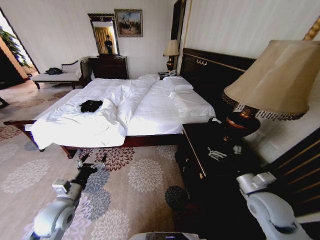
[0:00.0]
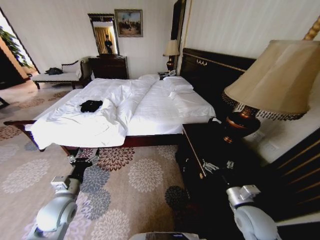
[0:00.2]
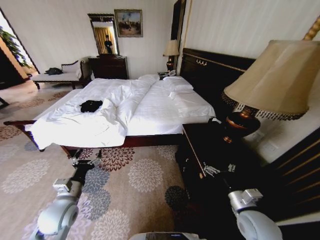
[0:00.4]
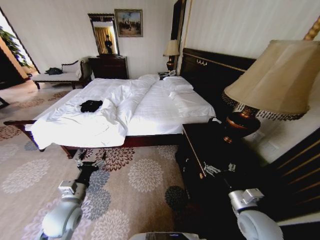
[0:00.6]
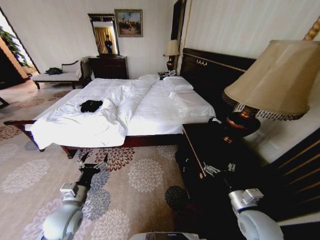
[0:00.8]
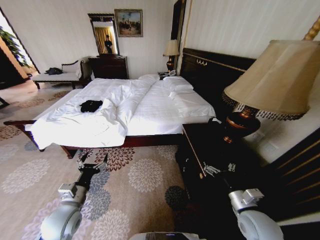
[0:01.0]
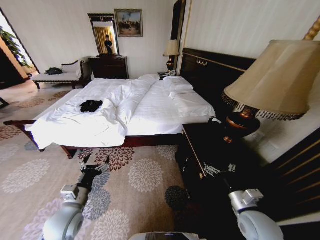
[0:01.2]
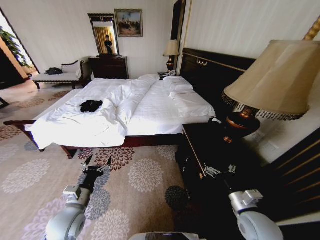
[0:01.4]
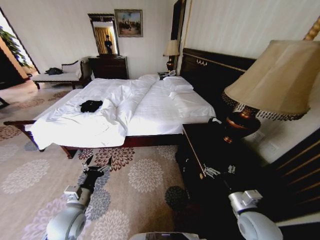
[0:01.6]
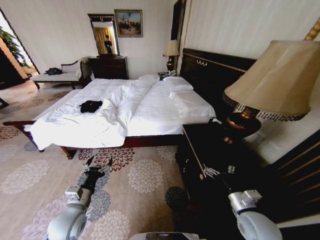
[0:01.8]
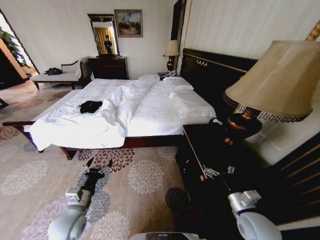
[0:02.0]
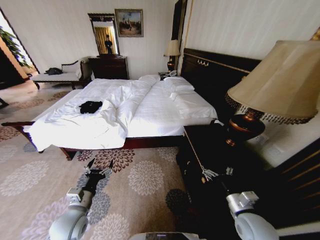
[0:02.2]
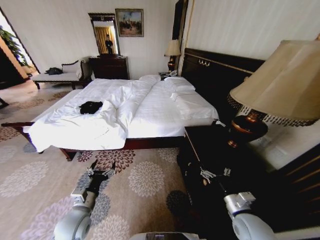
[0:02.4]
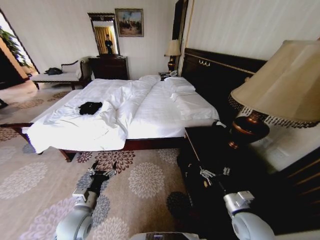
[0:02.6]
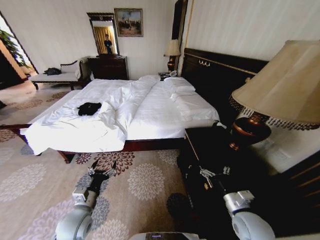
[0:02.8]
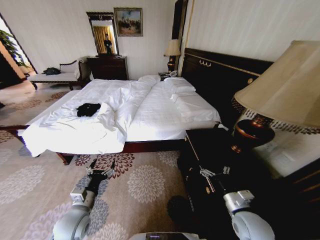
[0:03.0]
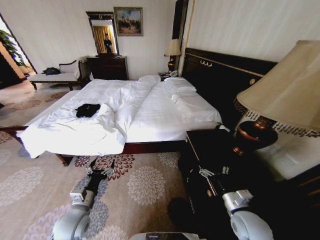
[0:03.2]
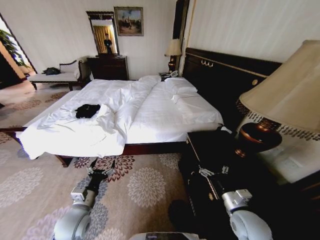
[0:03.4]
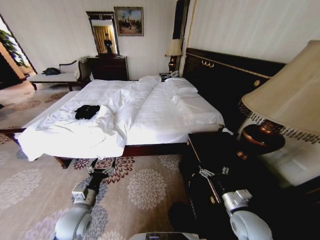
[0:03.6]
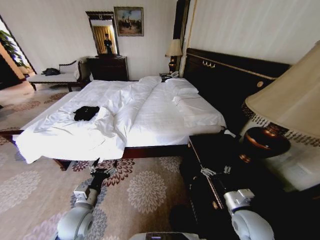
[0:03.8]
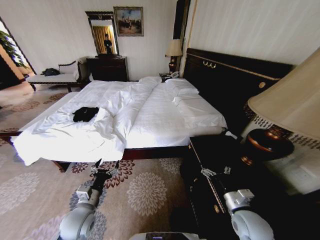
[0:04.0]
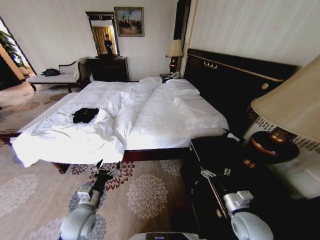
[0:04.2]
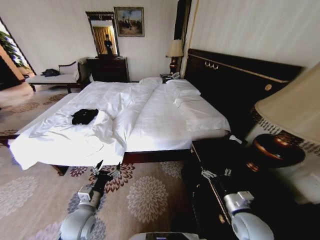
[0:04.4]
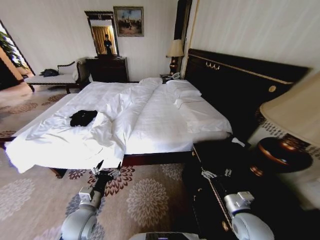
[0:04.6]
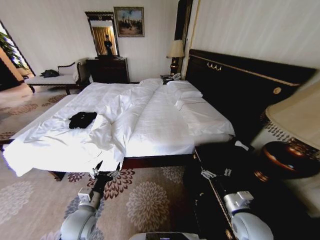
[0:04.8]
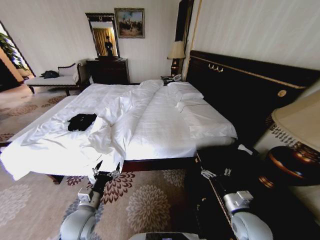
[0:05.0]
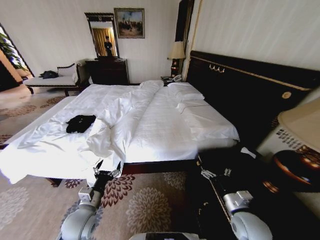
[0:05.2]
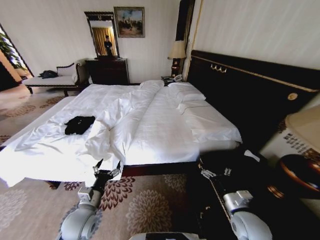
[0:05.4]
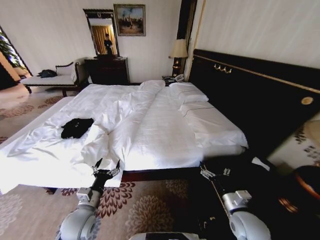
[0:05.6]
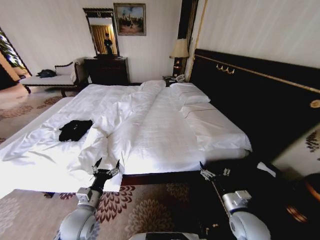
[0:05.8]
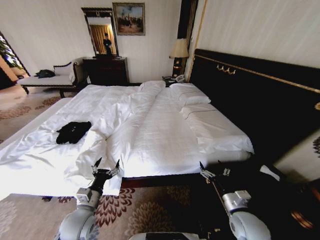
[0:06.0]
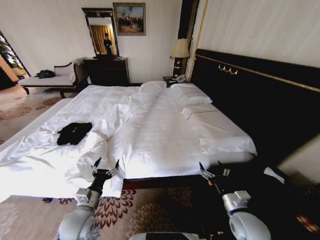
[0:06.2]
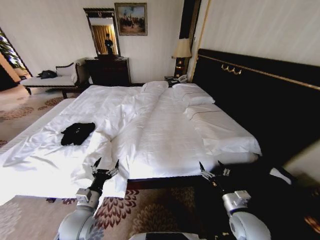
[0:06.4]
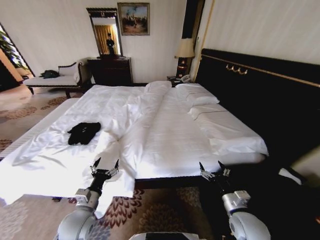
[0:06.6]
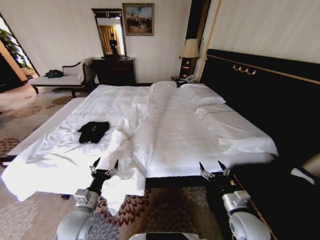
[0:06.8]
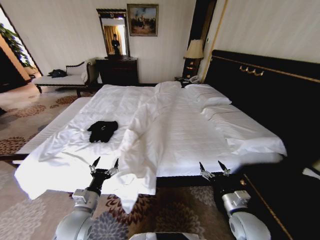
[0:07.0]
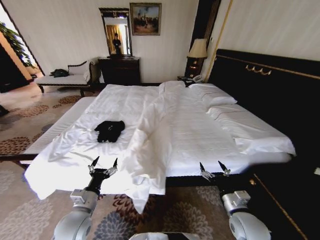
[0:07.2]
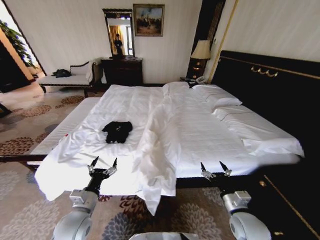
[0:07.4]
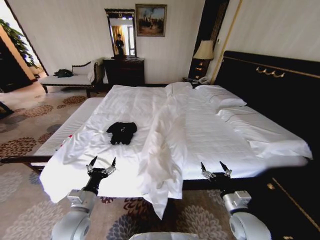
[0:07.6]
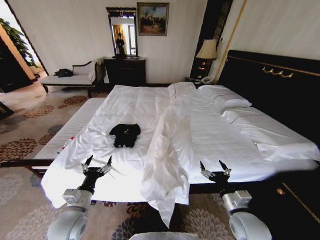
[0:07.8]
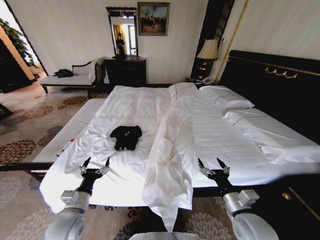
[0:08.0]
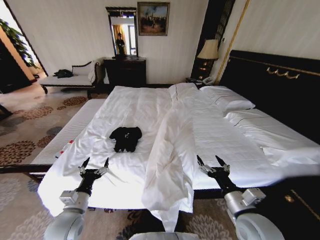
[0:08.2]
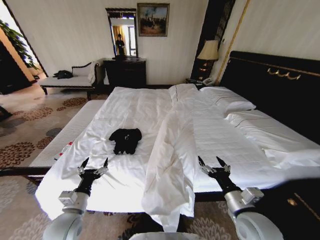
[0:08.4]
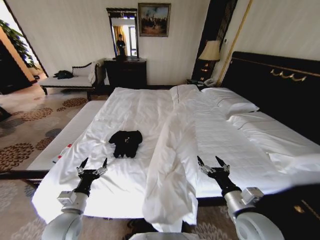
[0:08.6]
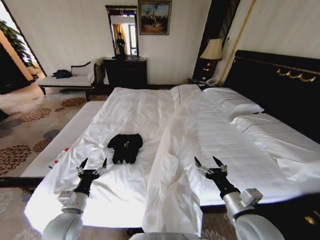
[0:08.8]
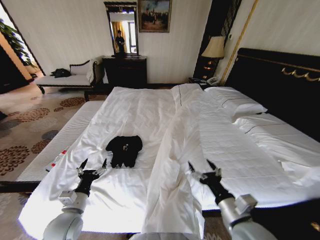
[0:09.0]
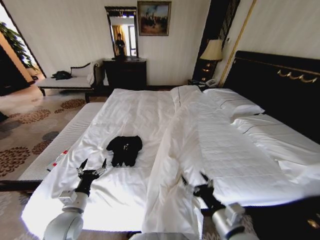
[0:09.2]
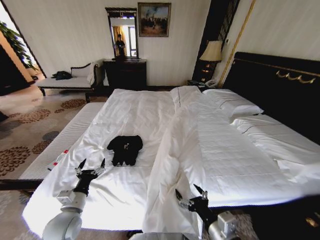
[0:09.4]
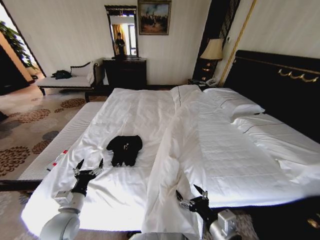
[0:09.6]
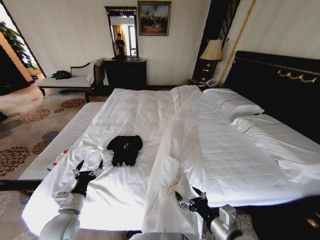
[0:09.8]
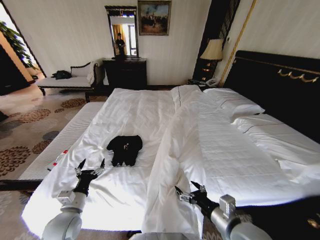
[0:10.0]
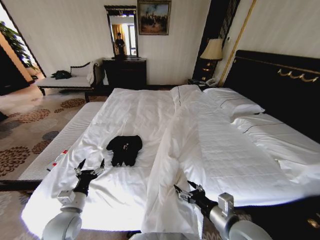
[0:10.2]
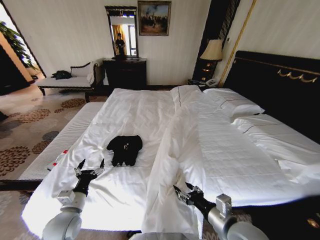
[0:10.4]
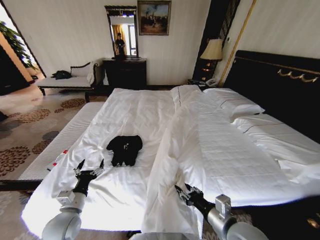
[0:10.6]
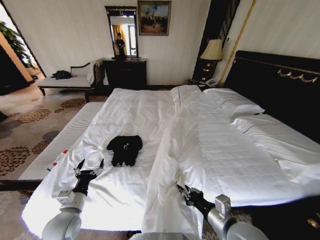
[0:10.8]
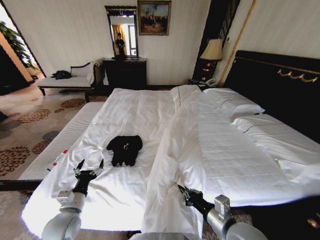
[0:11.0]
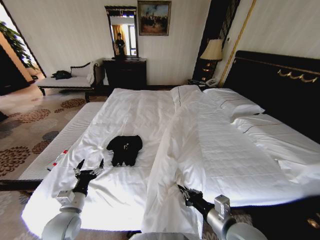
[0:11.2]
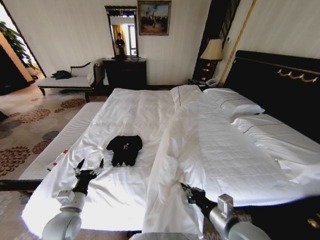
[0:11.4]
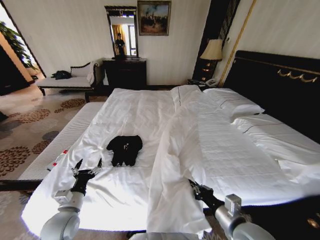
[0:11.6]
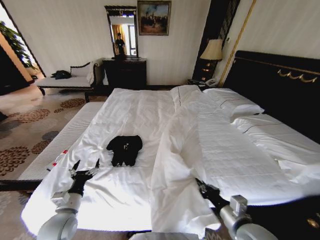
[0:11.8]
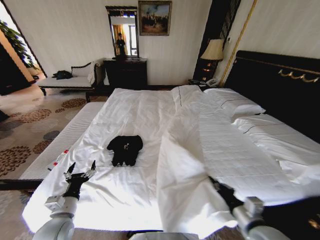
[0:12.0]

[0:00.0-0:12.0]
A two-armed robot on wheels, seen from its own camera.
Task of the whole recording: Fold the clothes on the bed.
0:07.6 to 0:09.0: The right gripper shifts approximately 10 cm upward and to the left.
0:10.4 to 0:12.0: The right gripper moves to the right, roughly 10 cm, and closes up.

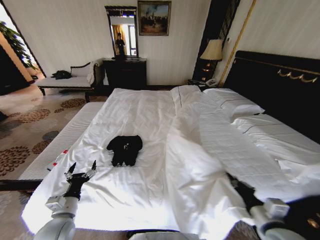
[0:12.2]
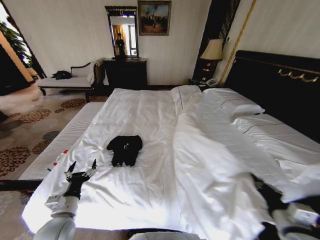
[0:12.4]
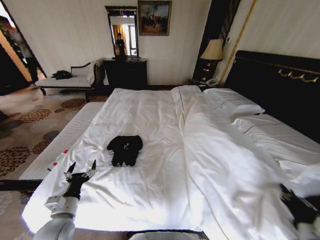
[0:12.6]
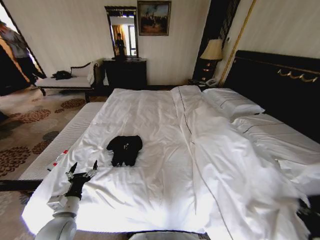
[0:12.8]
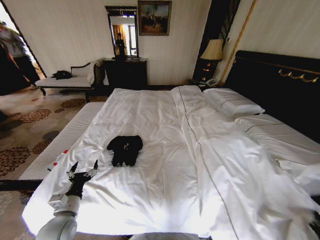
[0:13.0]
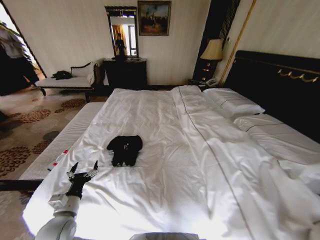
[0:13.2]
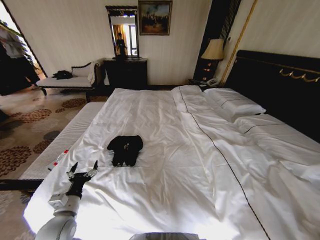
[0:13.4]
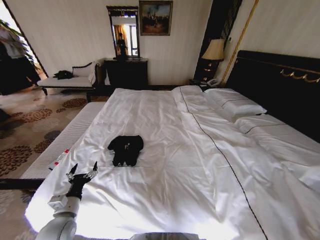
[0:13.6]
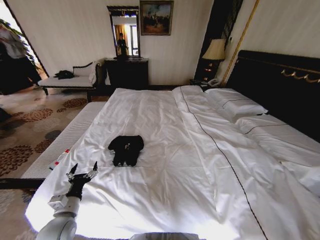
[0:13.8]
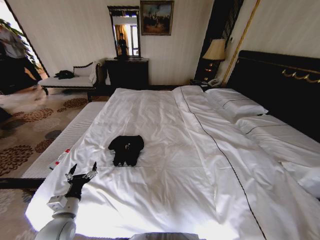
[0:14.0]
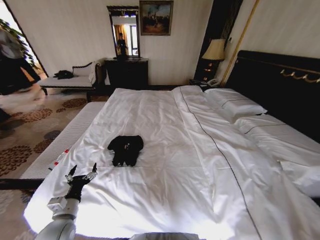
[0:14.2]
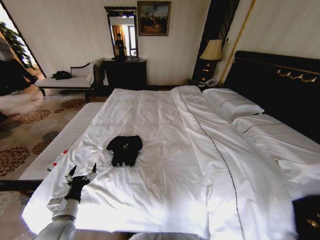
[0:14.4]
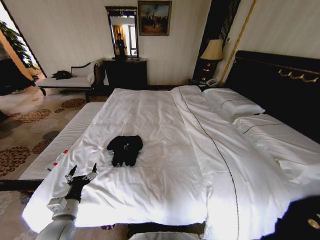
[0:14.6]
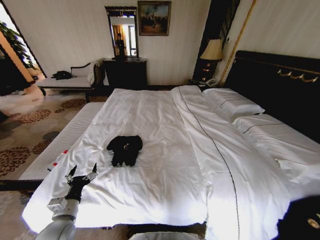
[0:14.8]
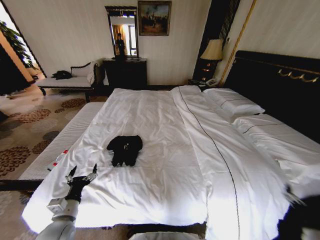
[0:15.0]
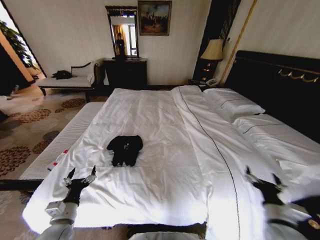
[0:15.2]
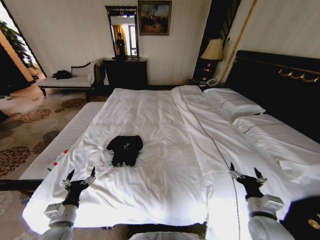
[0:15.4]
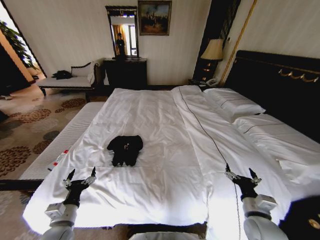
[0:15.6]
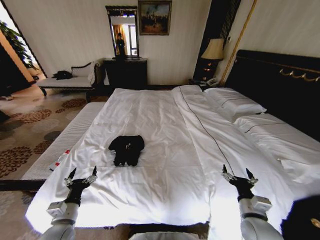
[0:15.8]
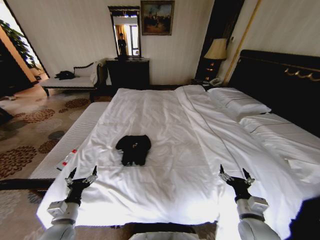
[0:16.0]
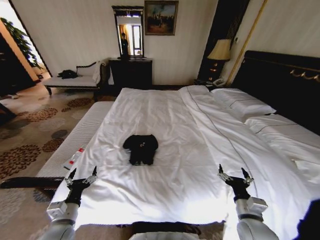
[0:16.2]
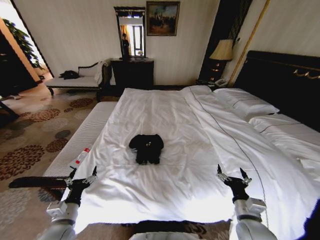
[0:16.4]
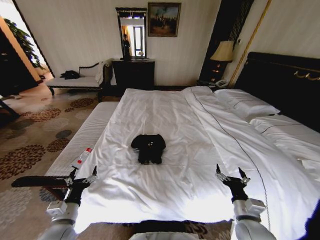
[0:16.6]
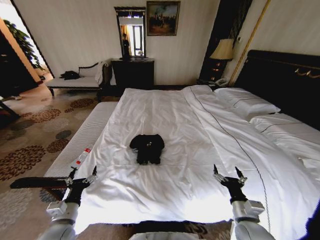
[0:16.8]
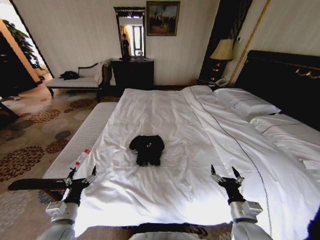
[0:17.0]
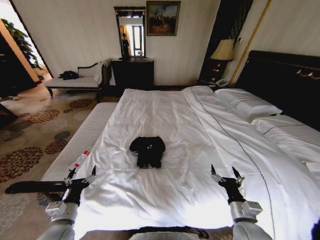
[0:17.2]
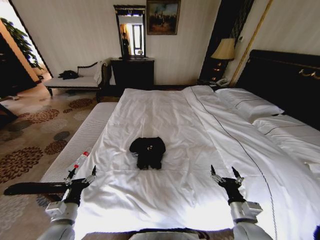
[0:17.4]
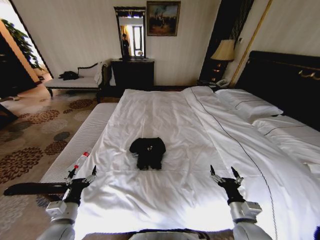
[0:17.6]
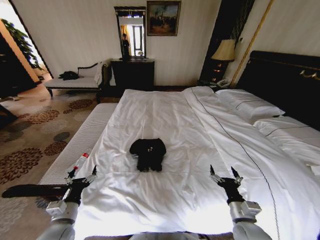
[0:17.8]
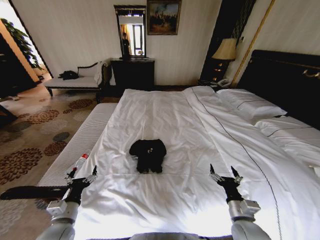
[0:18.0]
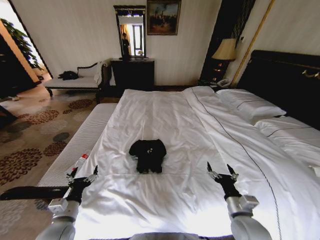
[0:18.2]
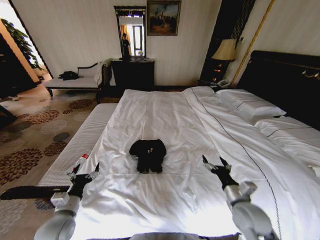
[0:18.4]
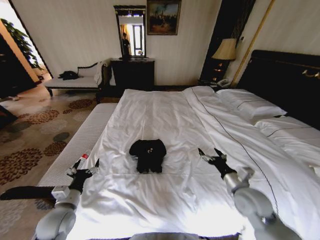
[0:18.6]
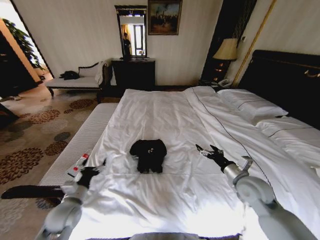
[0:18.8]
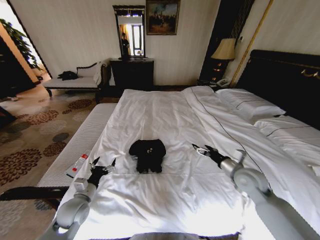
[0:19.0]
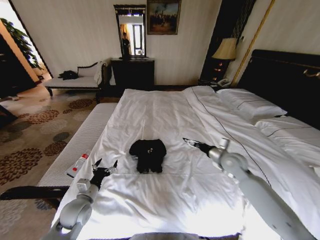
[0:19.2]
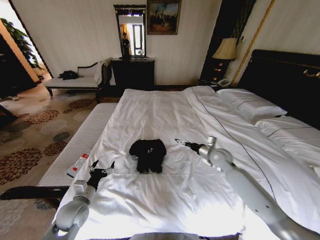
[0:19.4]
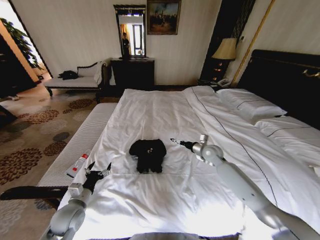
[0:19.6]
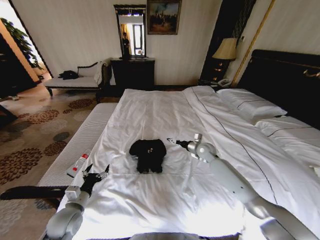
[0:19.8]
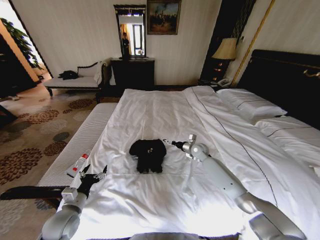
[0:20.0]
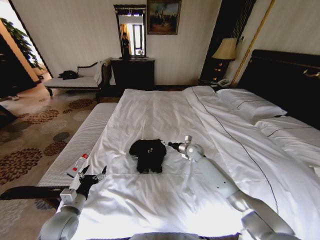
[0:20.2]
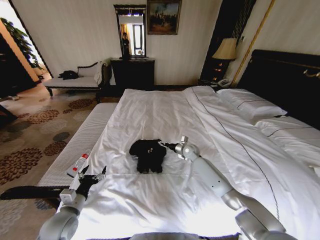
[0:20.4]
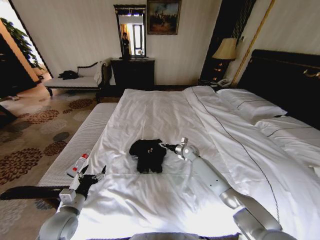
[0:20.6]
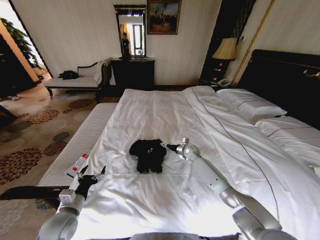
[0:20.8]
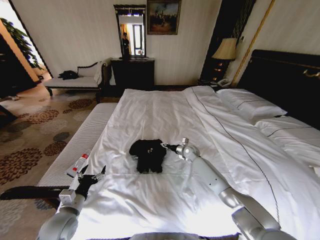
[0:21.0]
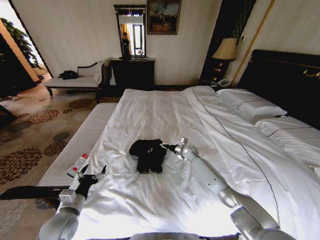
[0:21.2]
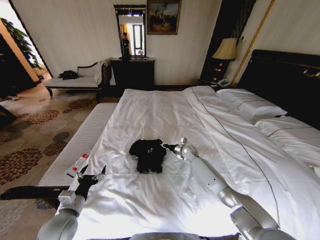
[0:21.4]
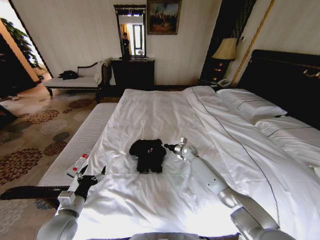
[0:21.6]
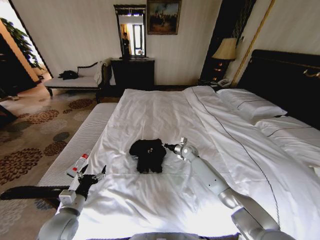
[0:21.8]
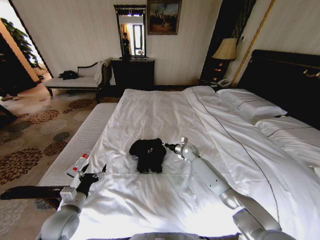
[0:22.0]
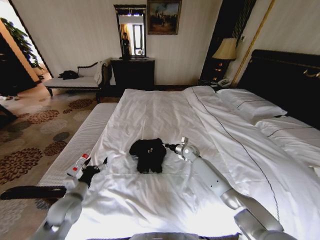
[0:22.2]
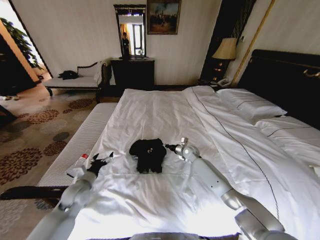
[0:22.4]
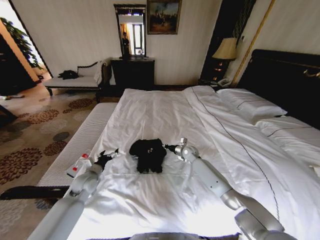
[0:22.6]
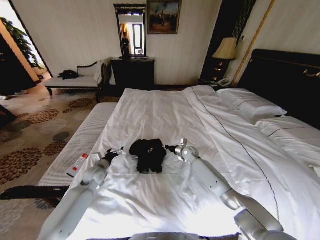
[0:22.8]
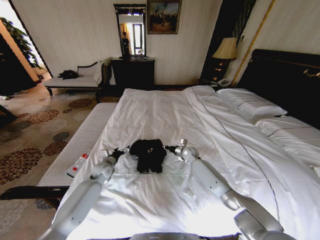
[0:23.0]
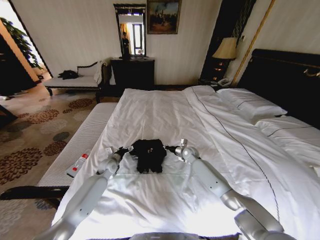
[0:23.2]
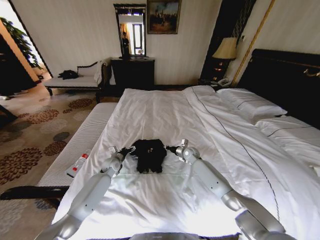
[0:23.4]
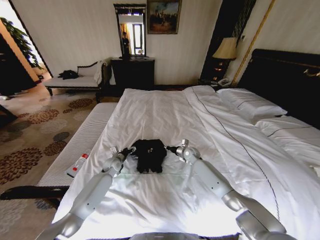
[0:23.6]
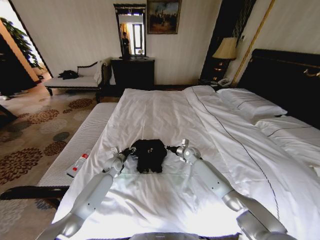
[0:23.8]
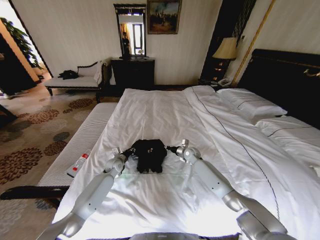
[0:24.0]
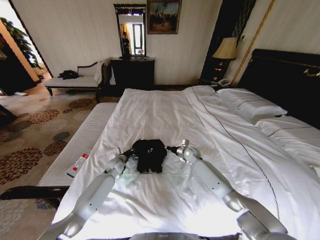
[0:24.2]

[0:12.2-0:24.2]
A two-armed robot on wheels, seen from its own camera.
Task of the whole recording: Fold the clothes on the bed.
0:12.2 to 0:13.8: The right gripper shifts approximately 30 cm to the right, backward and downward.
0:13.8 to 0:15.2: The right gripper moves to the left, forward and upward, some 25 cm, and opens its fingers.
0:15.2 to 0:16.6: The right gripper is displaced to the left by some 5 cm.
0:18.2 to 0:19.8: The right gripper heads forward, covering some 30 cm.
0:19.8 to 0:21.2: The right gripper travels downward and to the left by about 10 cm, and closes its fingers.
0:21.2 to 0:22.6: The right gripper closes up; the left gripper travels forward by roughly 15 cm.
0:22.6 to 0:24.2: The left gripper moves forward, to the right and downward, approximately 15 cm, and closes its fingers.
